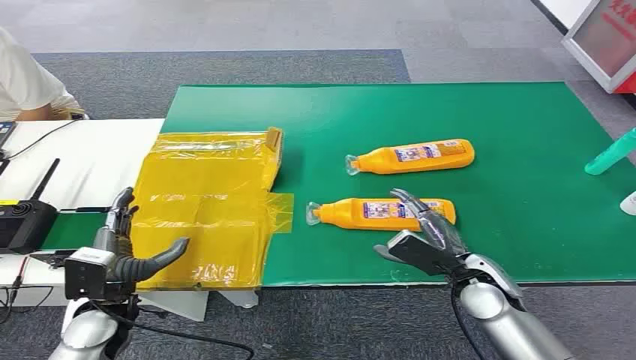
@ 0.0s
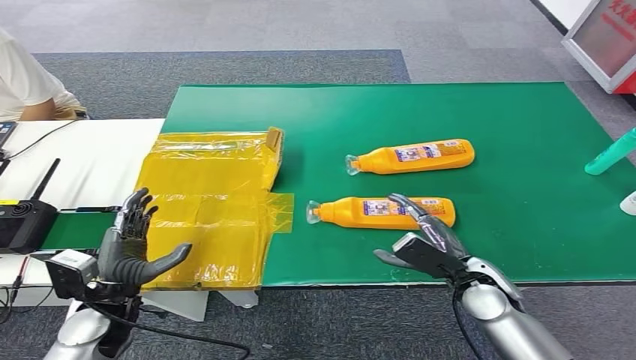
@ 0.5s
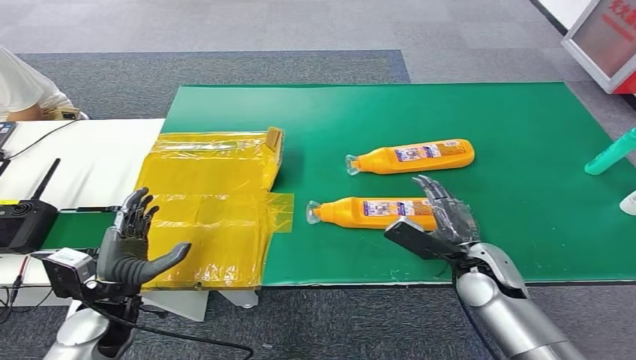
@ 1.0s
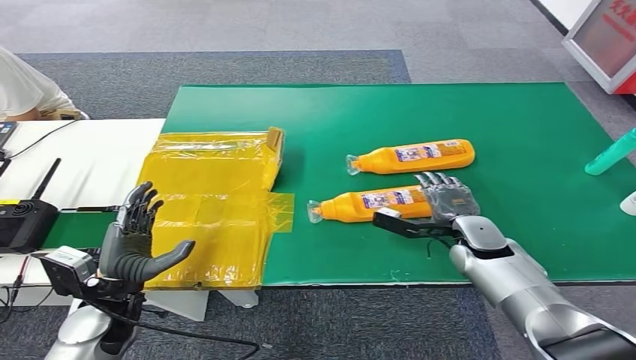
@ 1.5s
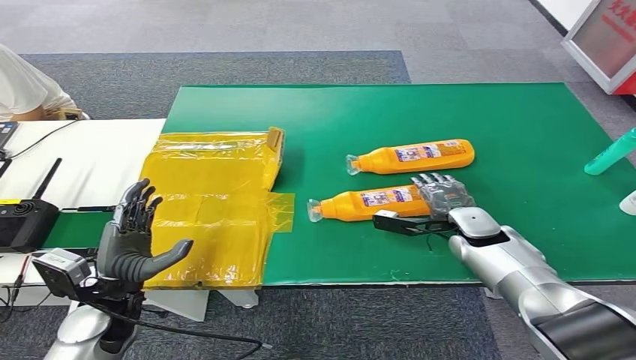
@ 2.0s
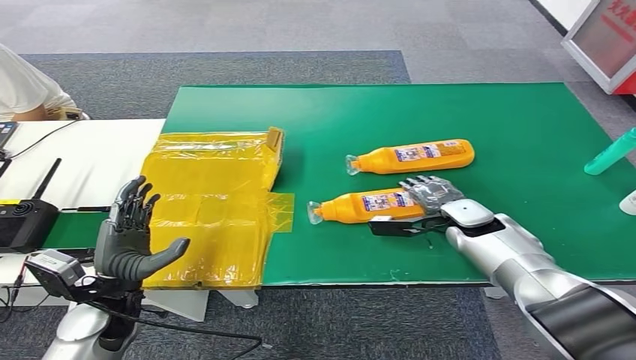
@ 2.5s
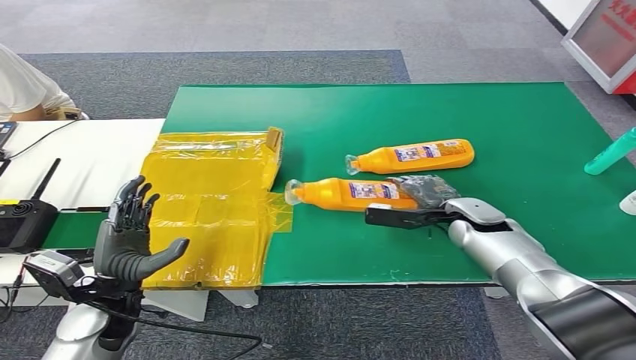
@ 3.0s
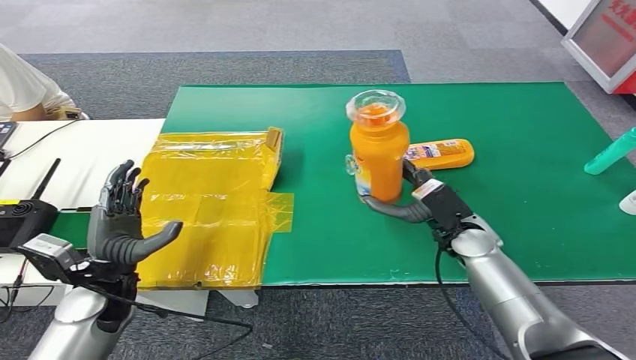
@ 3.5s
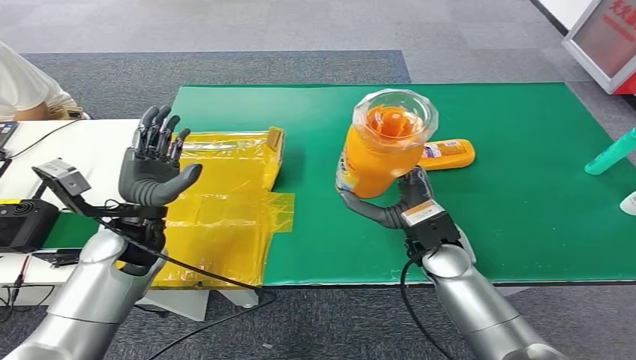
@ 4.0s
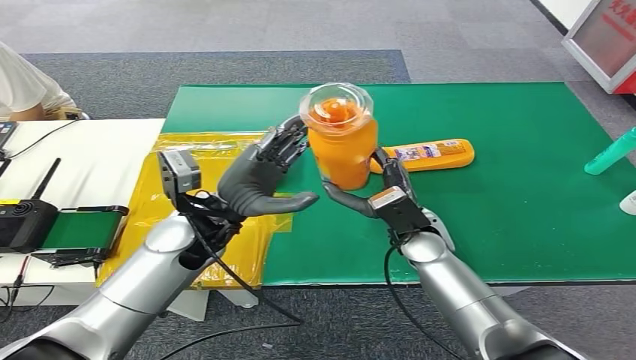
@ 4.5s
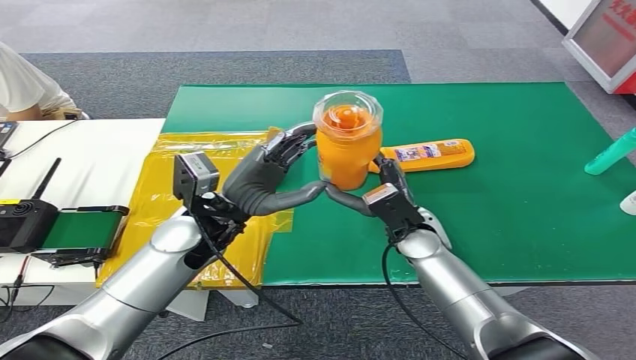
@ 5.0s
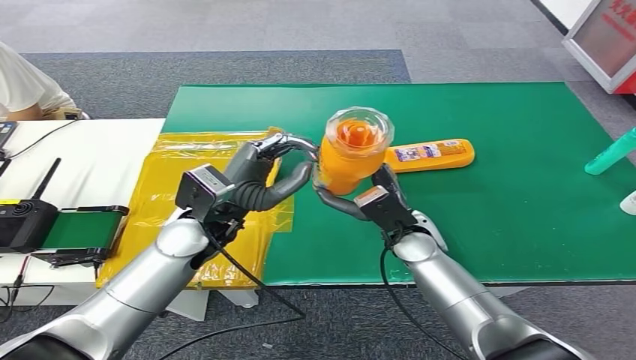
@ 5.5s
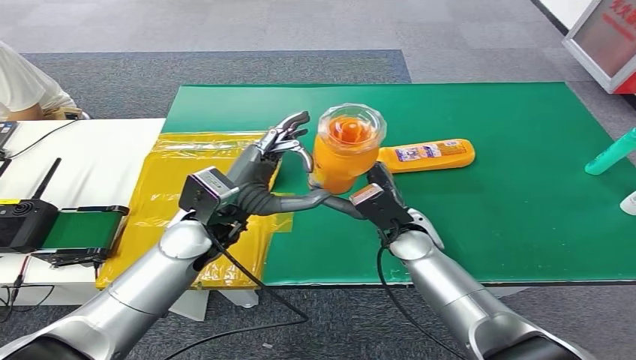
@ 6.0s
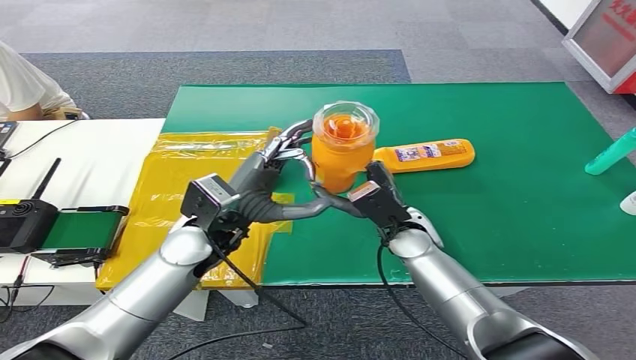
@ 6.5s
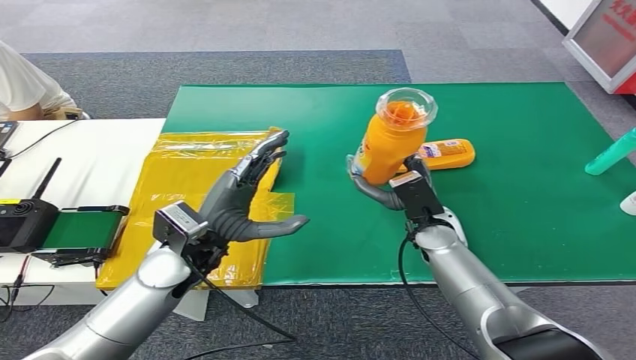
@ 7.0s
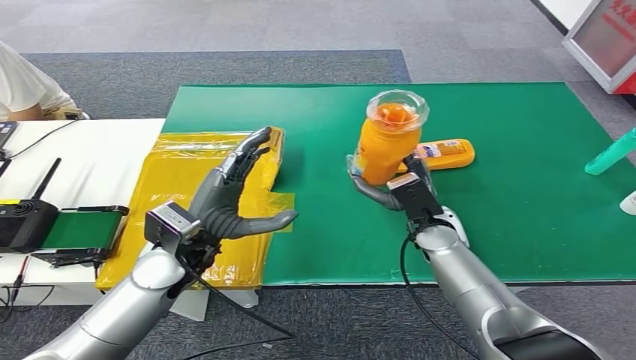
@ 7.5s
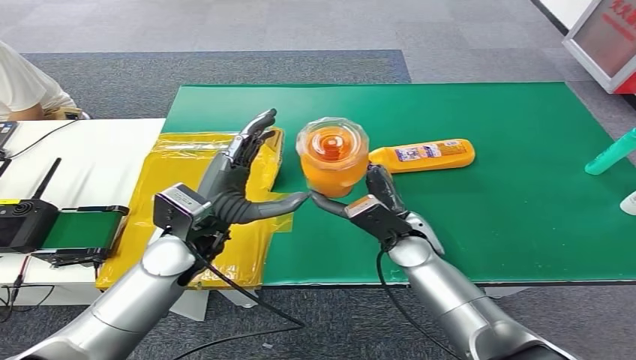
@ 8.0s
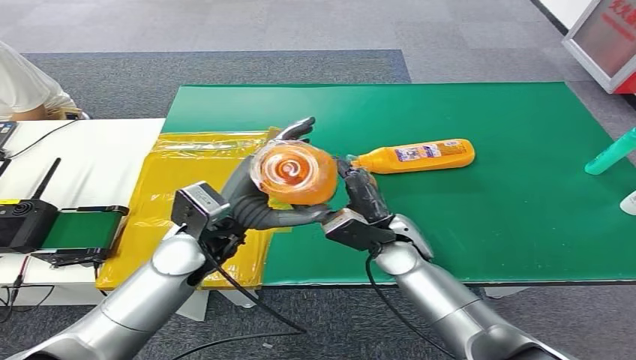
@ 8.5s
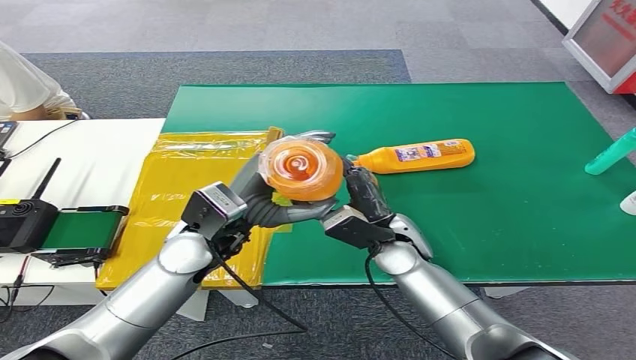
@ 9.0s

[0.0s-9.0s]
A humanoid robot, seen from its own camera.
Step, 0.0s to 3.5s: Pick up the bottle from the table.
7.0s to 9.0s: The right hand heads to the left, covering roughly 5 cm.

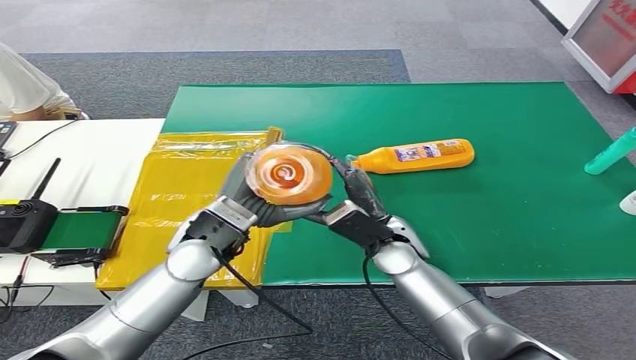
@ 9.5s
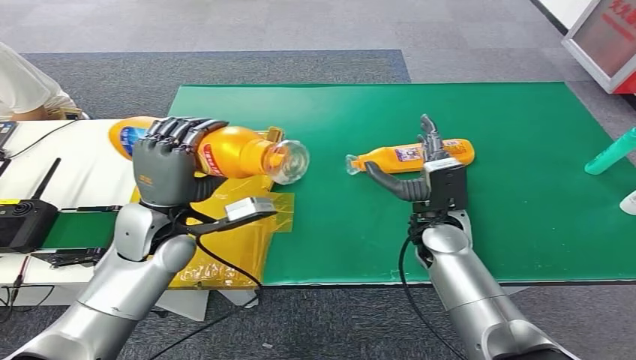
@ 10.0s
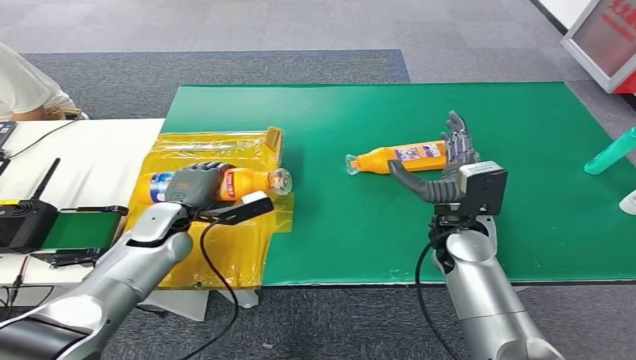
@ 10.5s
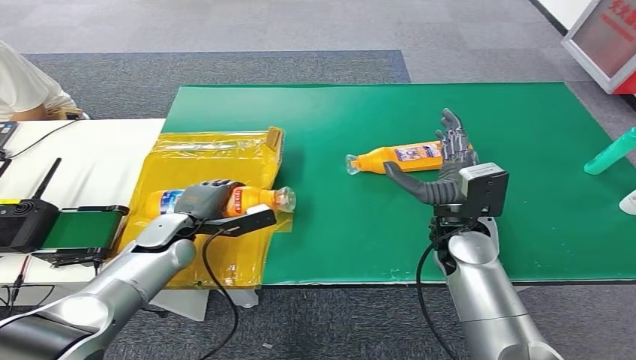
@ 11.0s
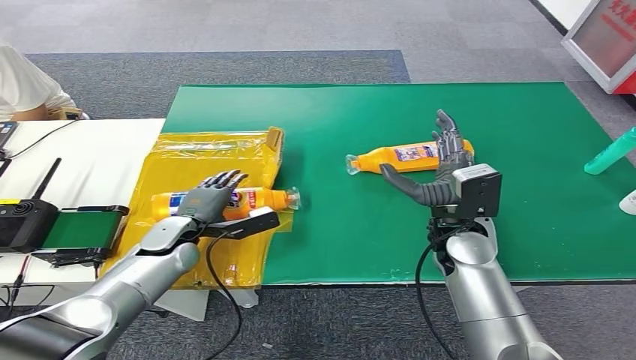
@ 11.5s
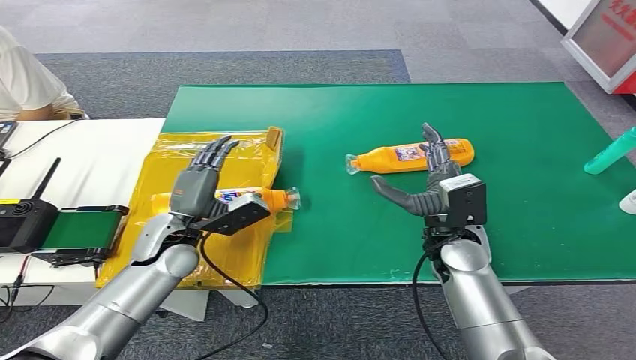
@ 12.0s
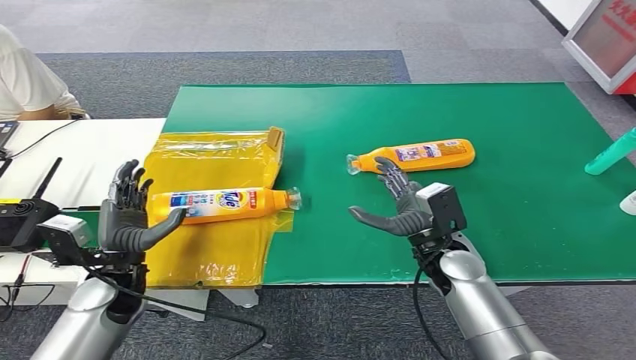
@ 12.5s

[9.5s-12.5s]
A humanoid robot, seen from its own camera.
Step, 9.5s to 12.5s: Turn the bottle to the front side.
11.0s to 12.5s: The left hand moves backward, roughly 10 cm. The right hand travels downward by some 5 cm.
